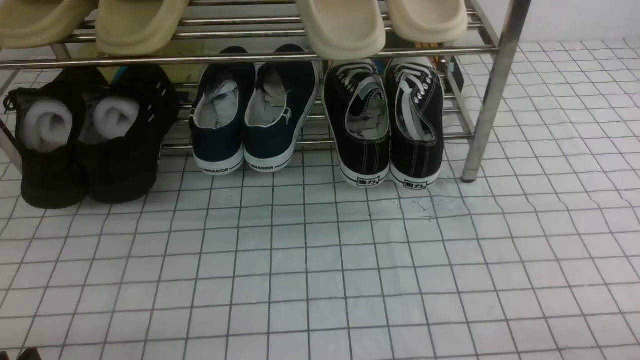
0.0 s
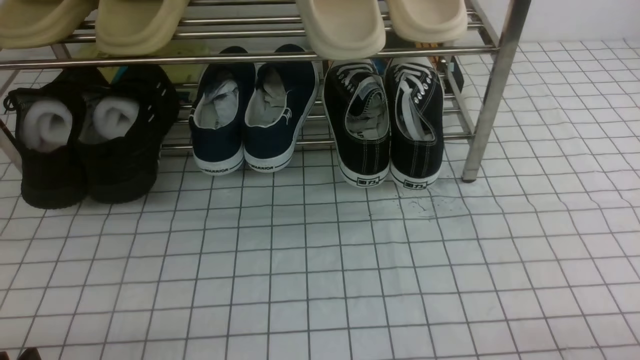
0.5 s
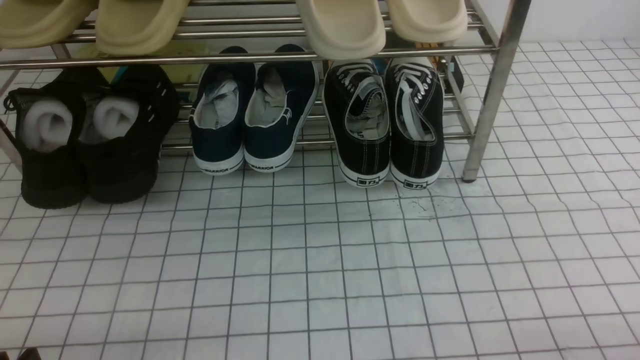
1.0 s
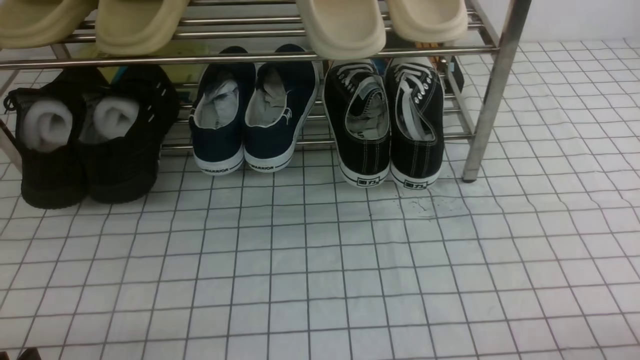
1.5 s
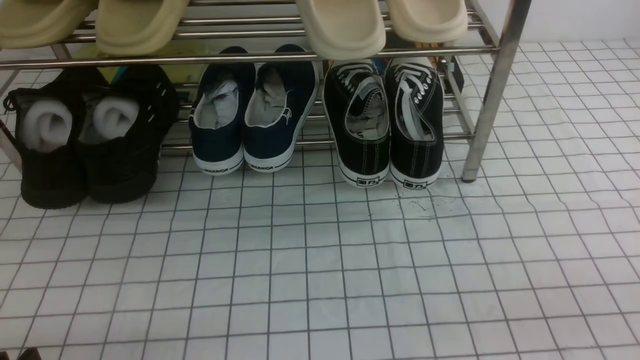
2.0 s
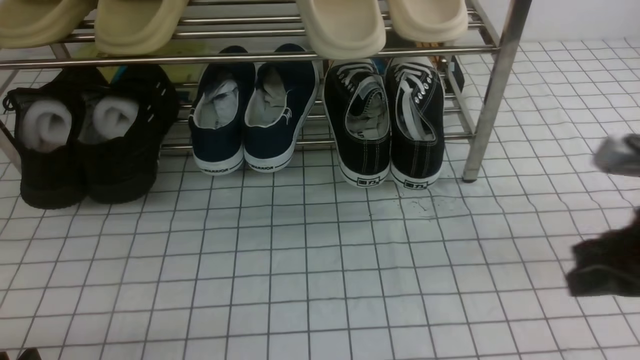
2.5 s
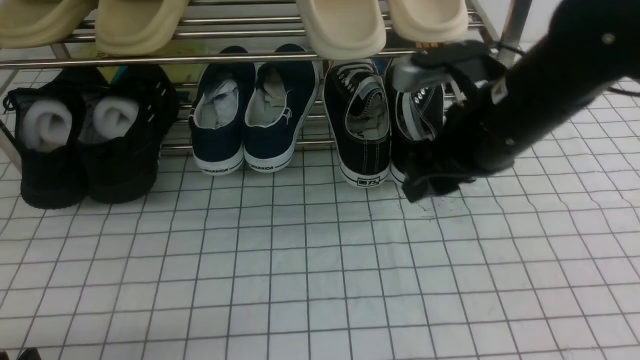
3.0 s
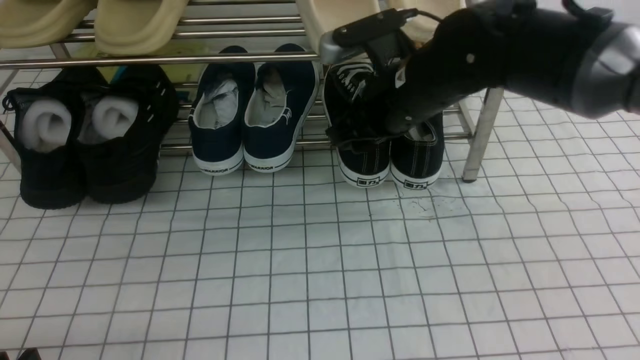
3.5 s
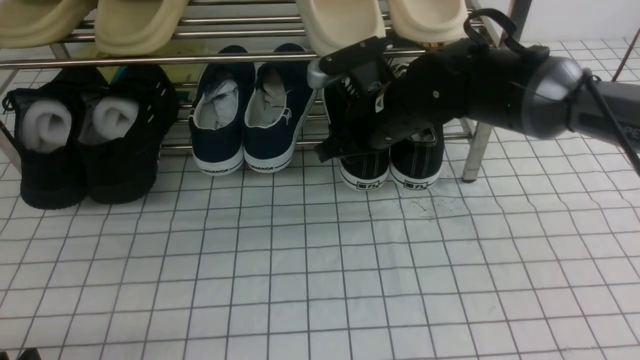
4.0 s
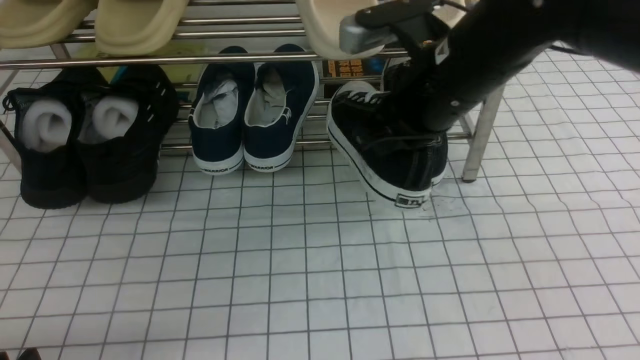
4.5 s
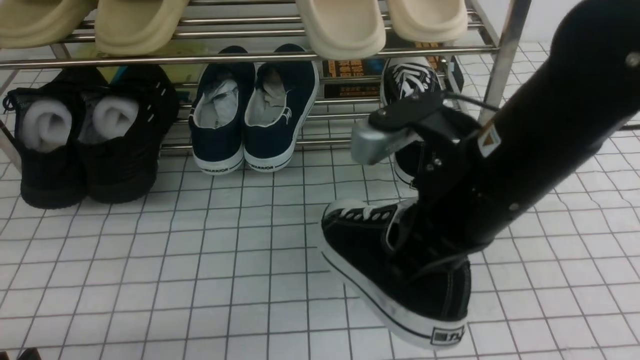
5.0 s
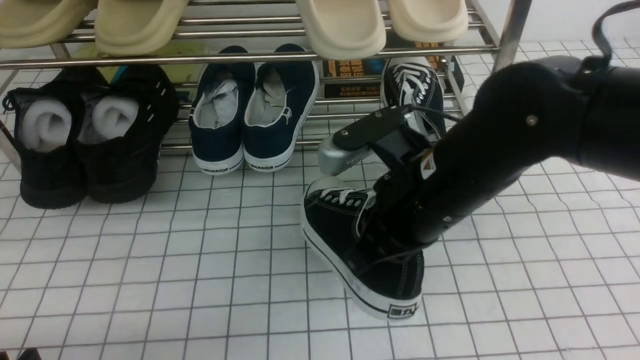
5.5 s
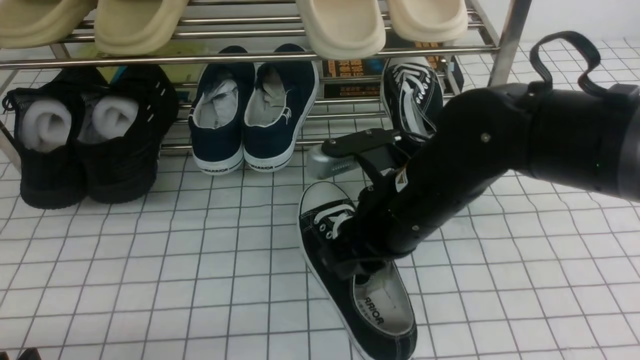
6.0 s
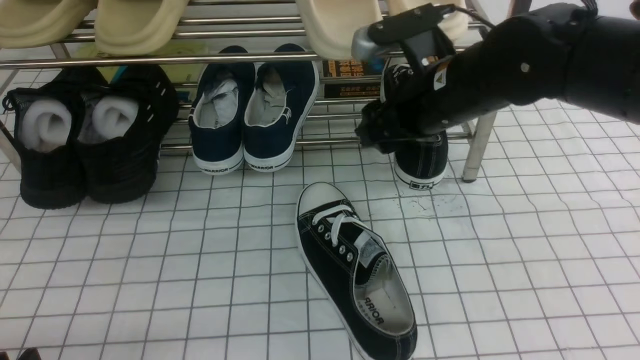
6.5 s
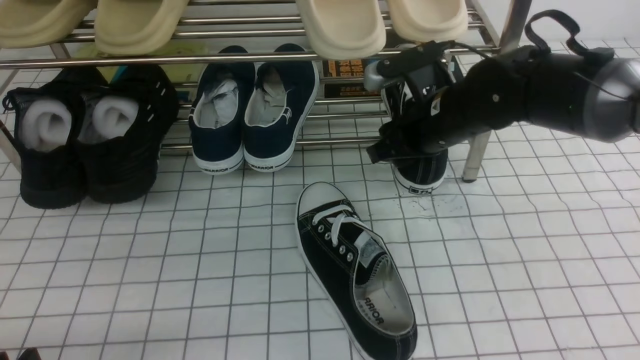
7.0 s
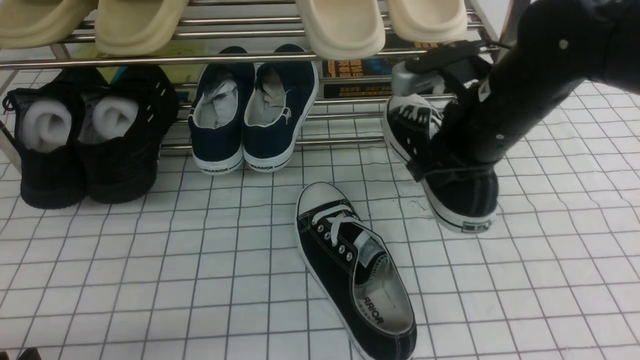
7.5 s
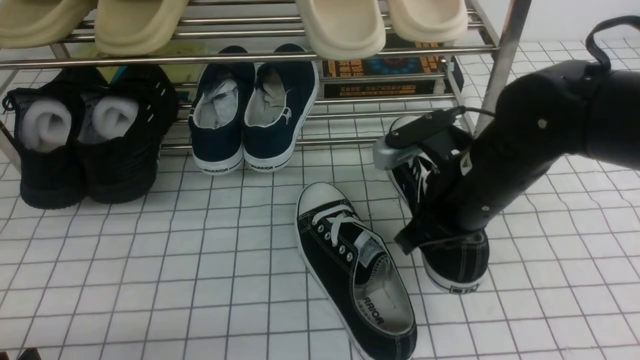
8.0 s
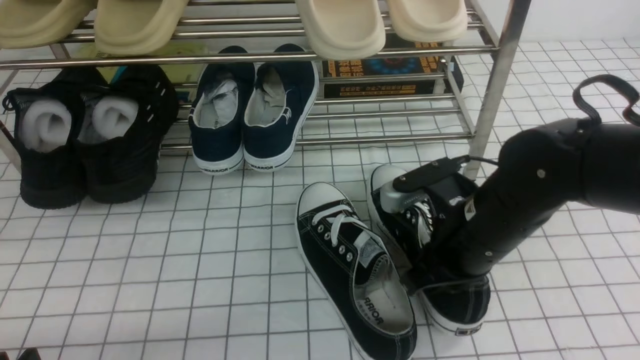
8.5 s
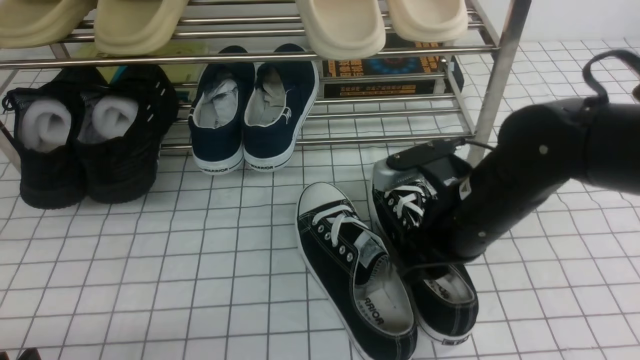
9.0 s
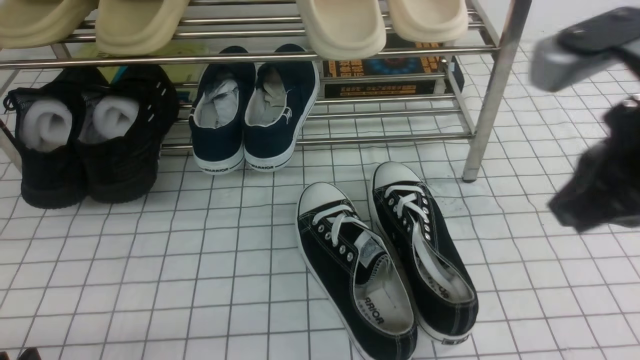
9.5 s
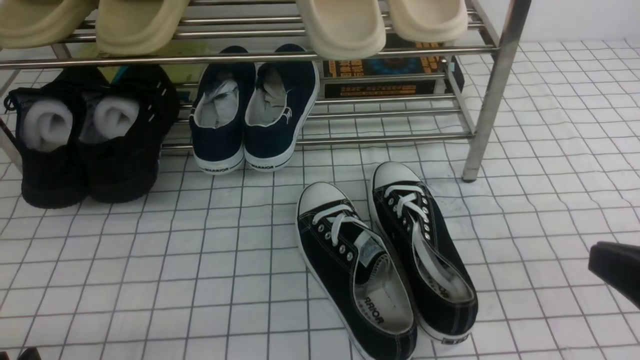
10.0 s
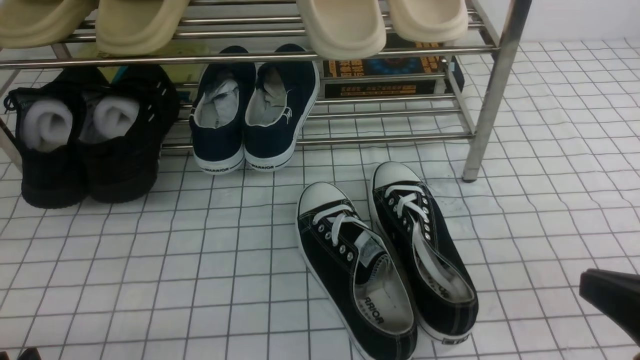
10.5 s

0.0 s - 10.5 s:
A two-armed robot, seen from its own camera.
Step, 0.0 s - 4.0 s: use the right arm to clamp a shoe on the right side of the shoe rack.
Step, 4.5 s - 6.0 s: use the right arm to take out the clamped shoe from the shoe rack and put it down.
Step, 6.5 s - 7.0 s: use the right arm to clamp a shoe on the right side of the shoe rack.
Step, 7.5 s - 9.0 s: use the right arm to take out the clamped shoe from the shoe rack and put it down.
2.0 s - 4.0 s: The right gripper shifts approximately 40 cm forward and to the left, and opens.
4.0 s - 6.5 s: The right gripper heads backward, covering roughly 5 cm, and closes, then opens again.
6.5 s - 8.5 s: The right gripper travels downward and backward by roughly 10 cm, and closes its fingers.
8.5 s - 10.5 s: The right gripper heads backward and to the right, covering about 20 cm, and opens, then closes again.

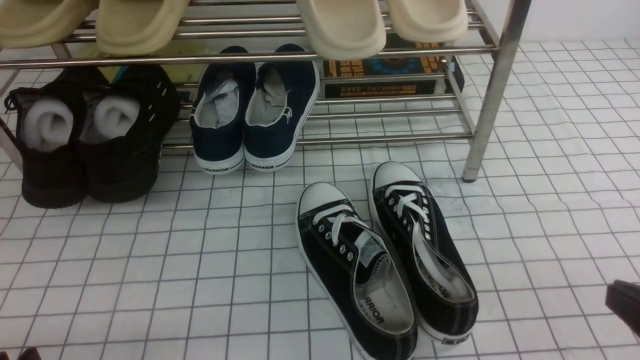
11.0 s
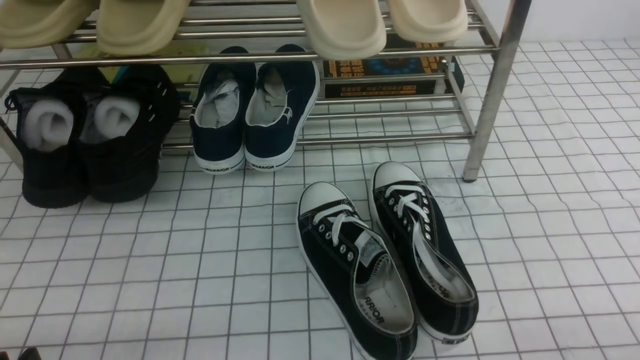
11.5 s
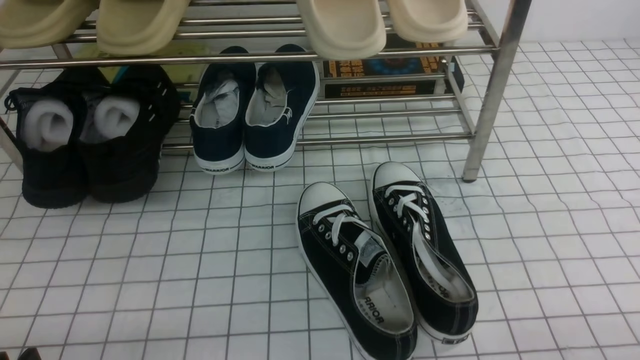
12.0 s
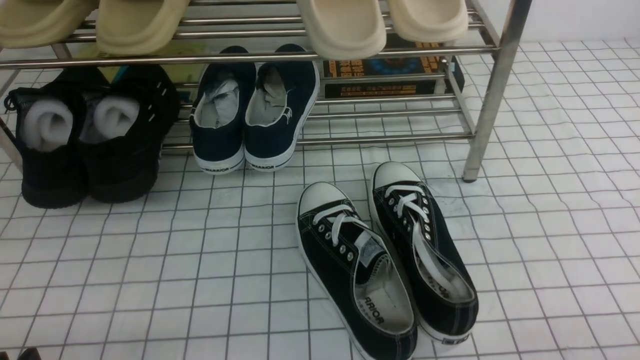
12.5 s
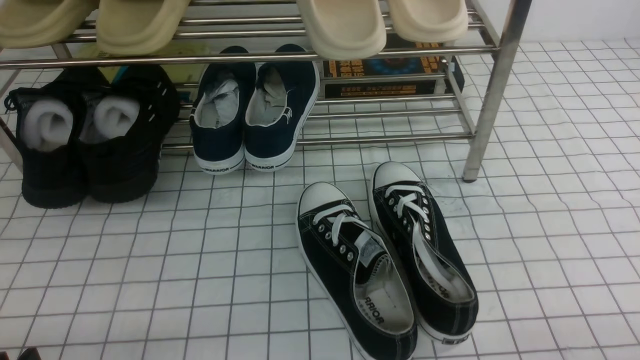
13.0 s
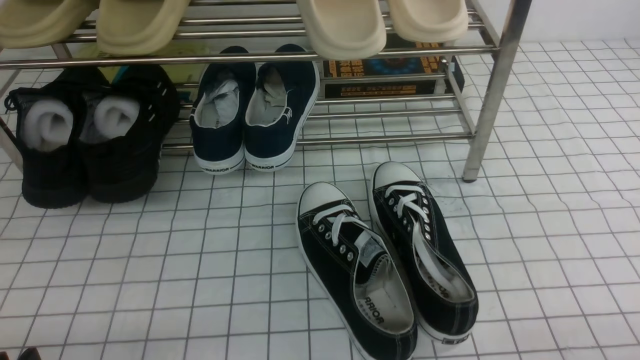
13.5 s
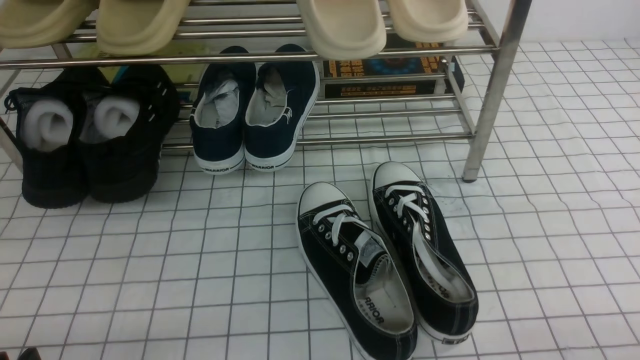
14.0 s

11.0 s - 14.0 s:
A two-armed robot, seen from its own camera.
12.5 s - 14.0 s: The two grippers keep their place.
